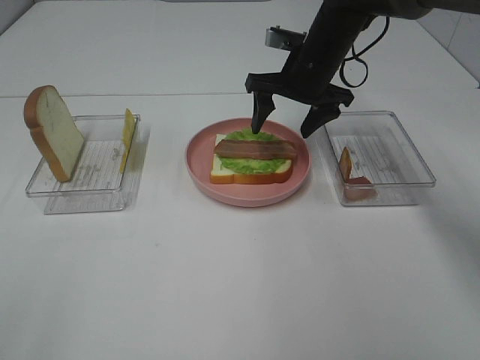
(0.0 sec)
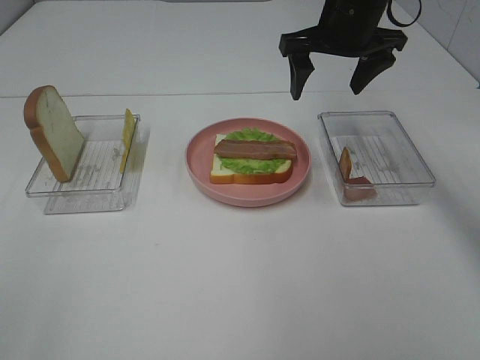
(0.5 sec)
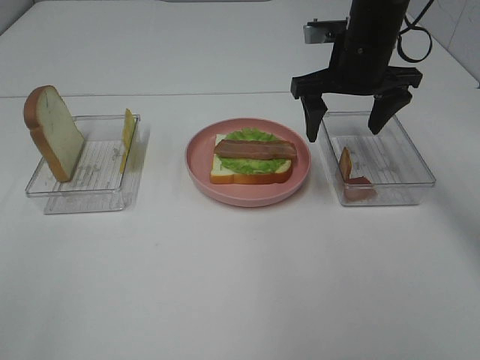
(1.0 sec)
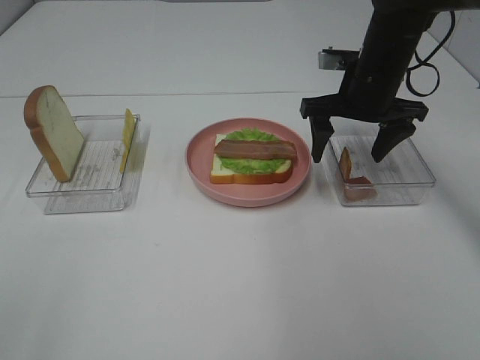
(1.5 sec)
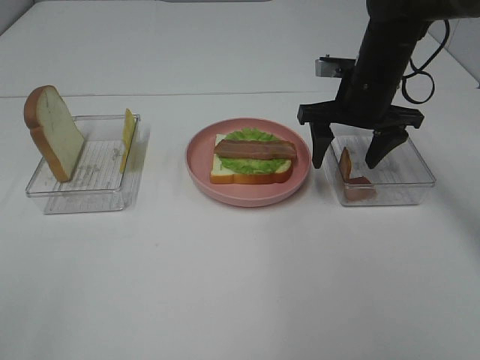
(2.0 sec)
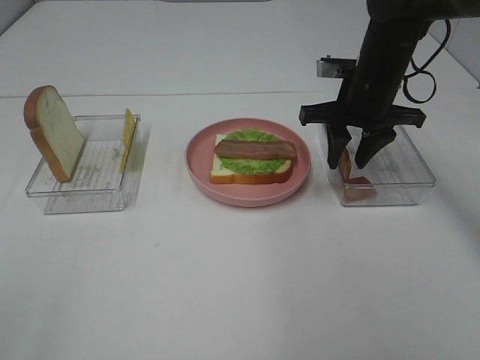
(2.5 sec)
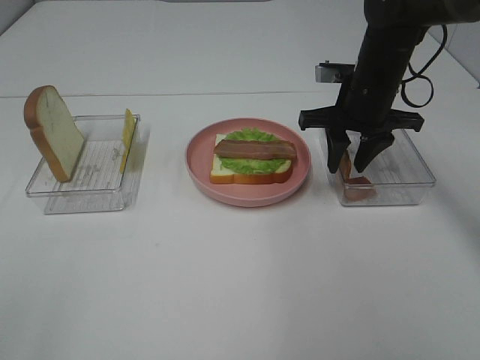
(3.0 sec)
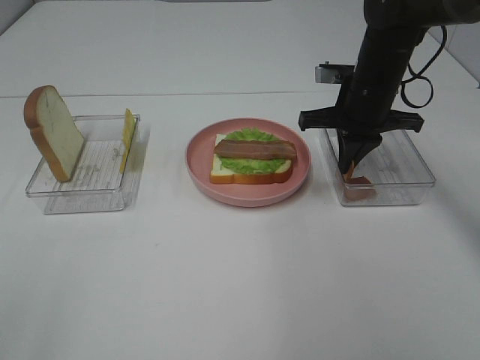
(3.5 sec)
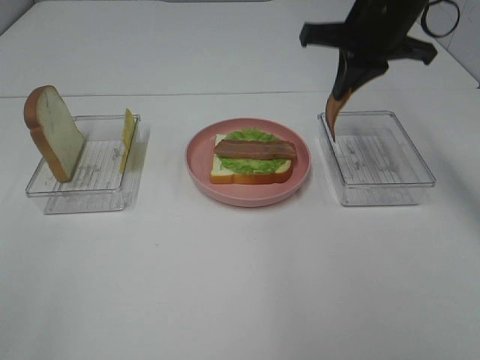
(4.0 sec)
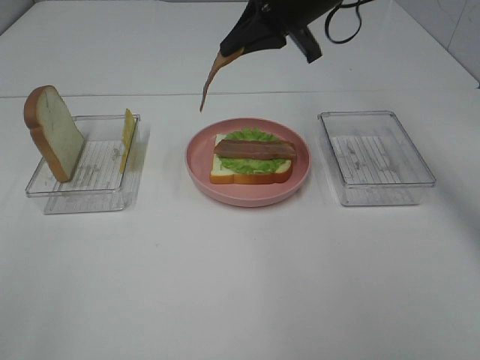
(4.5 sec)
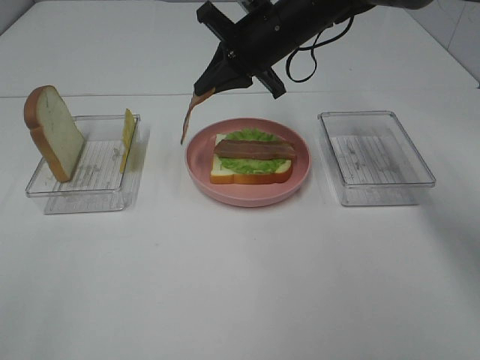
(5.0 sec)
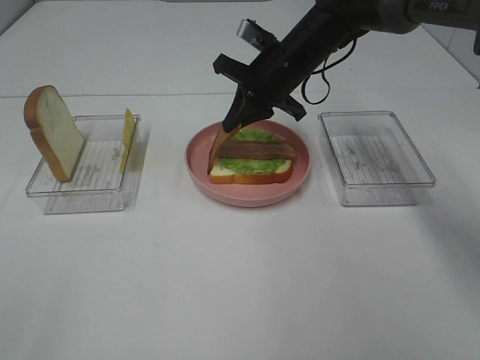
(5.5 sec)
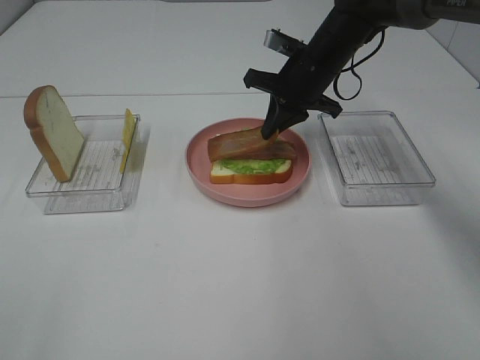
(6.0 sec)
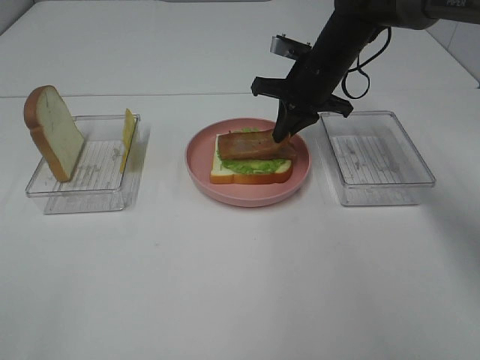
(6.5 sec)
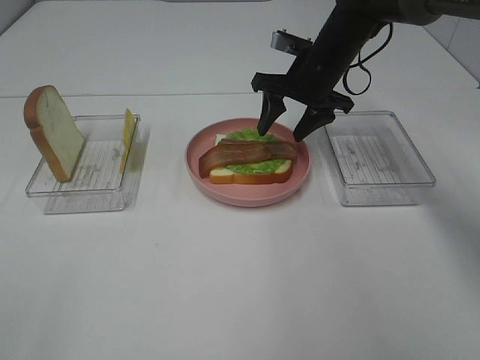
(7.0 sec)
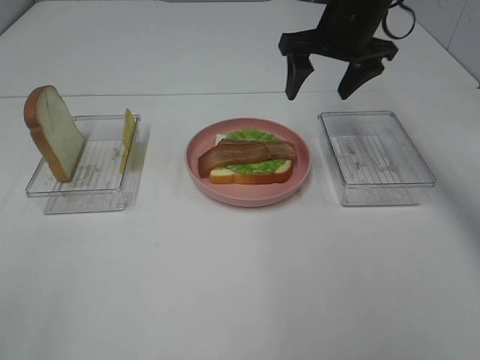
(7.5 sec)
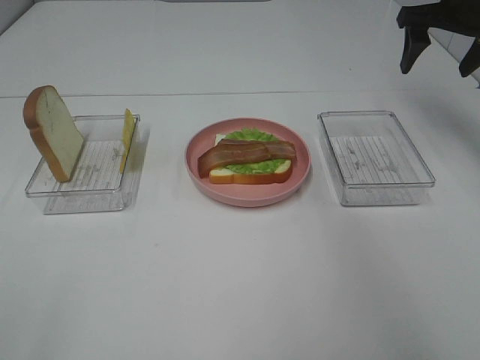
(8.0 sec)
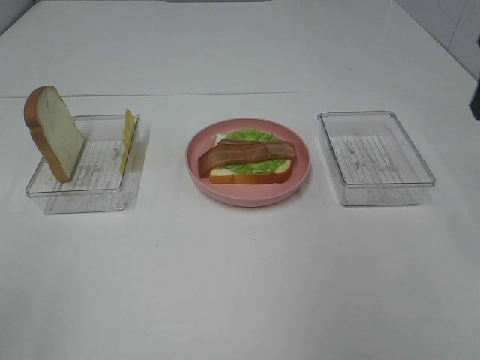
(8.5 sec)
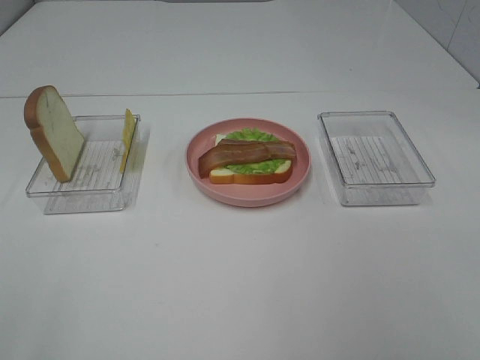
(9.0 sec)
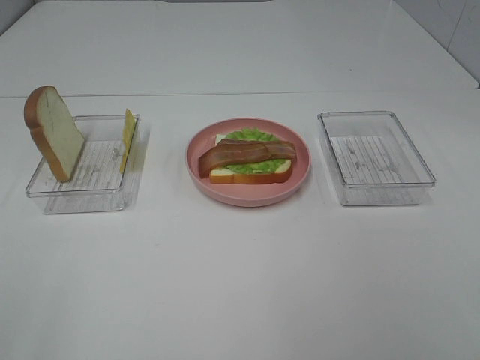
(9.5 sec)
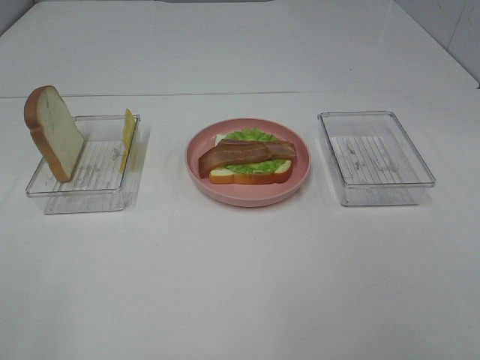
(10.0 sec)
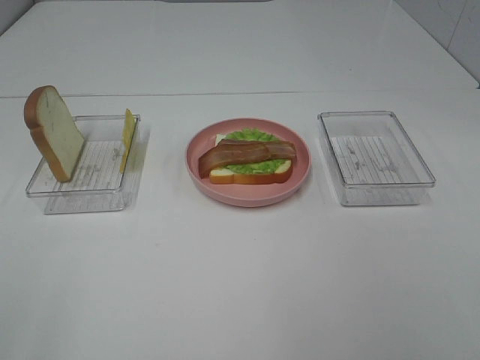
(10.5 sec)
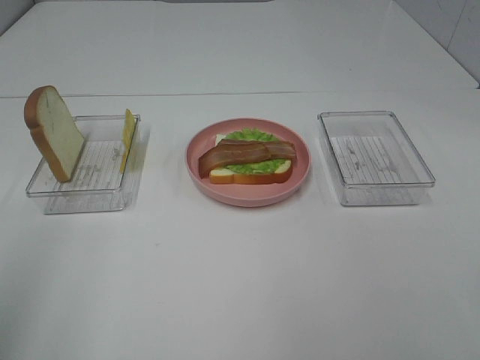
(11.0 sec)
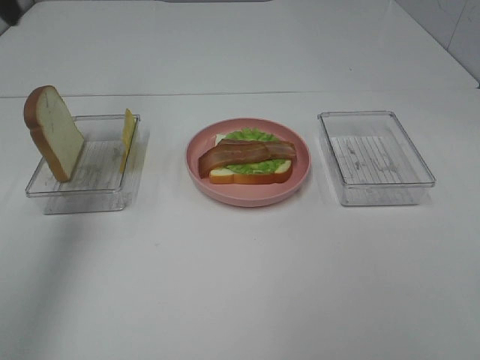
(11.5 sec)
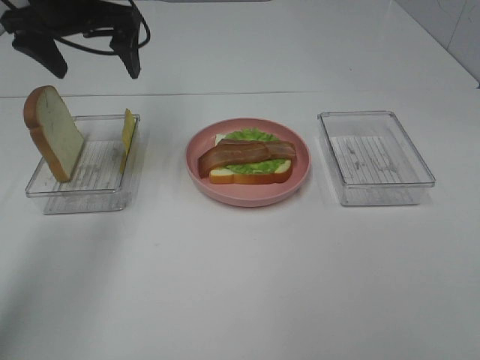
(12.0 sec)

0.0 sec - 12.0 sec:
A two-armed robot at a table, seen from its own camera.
Task of the whole recording: Make sandwiches.
Step, 0.0 sec - 3.5 sec: Right hand:grab the bacon.
Step, 4.0 sec - 7.0 sec: Right hand:place bacon on bacon.
0.0 sec - 2.0 sec: The right gripper shifts about 5 cm to the right, and goes upward and returns, some 5 cm each way.
2.0 sec - 4.0 sec: The right gripper shifts about 10 cm upward, and closes its fingers.
4.0 sec - 6.0 sec: The right gripper goes some 15 cm downward and forward.
6.0 sec - 8.0 sec: The right gripper moves to the right and upward, about 20 cm, and opens its fingers.
8.0 sec - 10.0 sec: The right gripper moves backward, approximately 50 cm.
10.0 sec - 12.0 sec: The left gripper shifts approximately 50 cm forward.

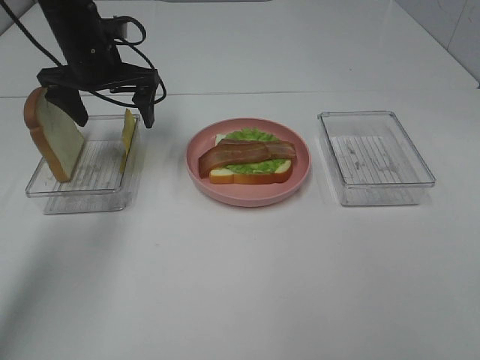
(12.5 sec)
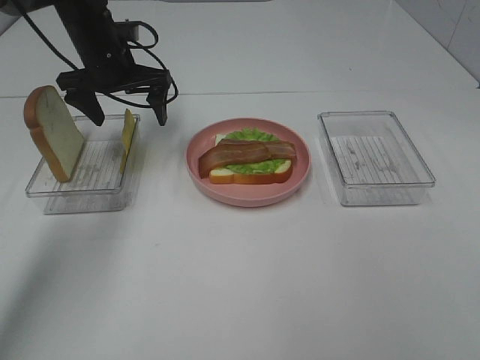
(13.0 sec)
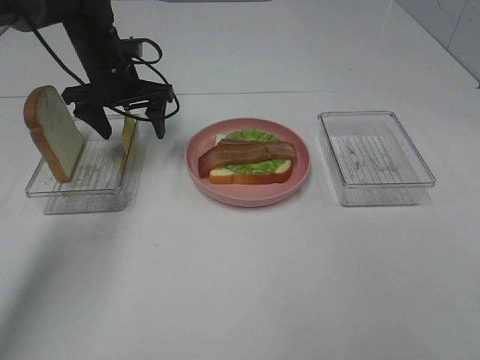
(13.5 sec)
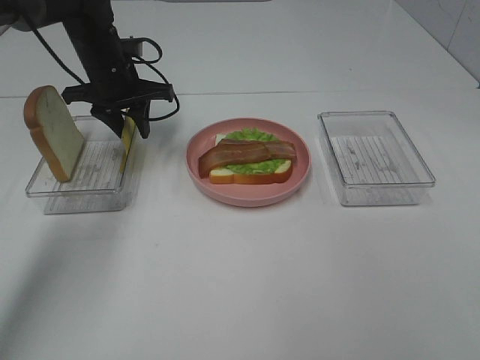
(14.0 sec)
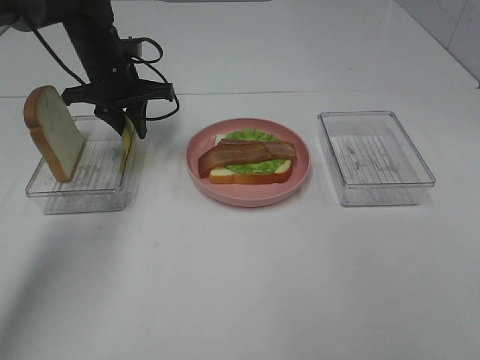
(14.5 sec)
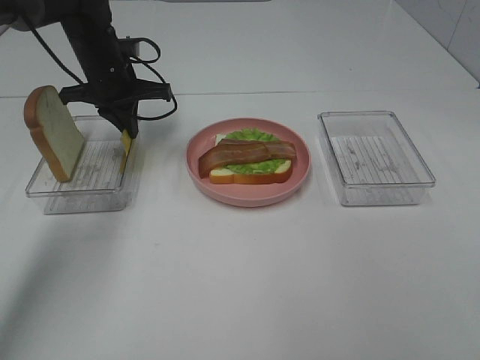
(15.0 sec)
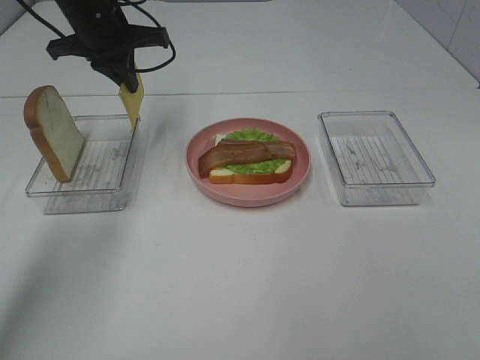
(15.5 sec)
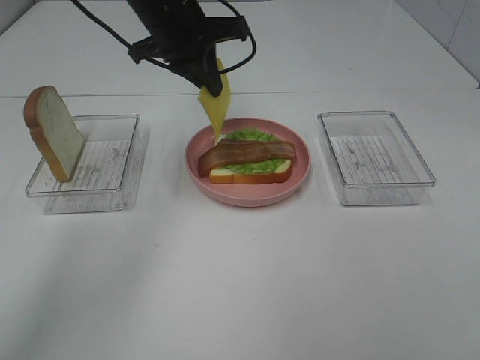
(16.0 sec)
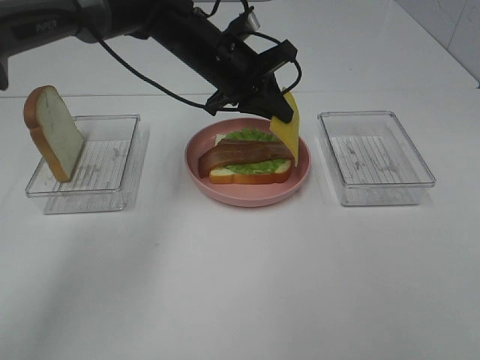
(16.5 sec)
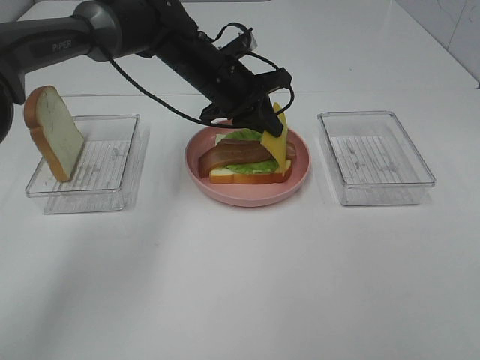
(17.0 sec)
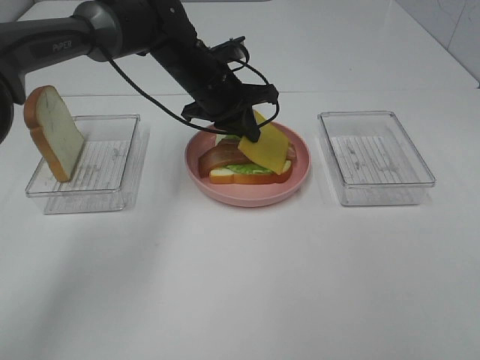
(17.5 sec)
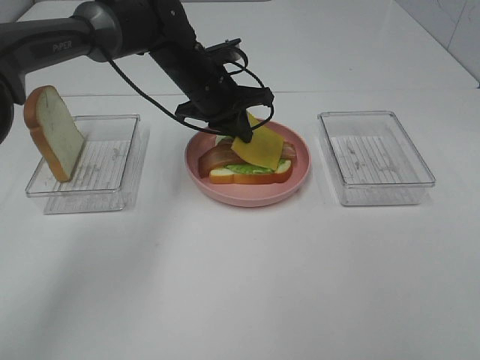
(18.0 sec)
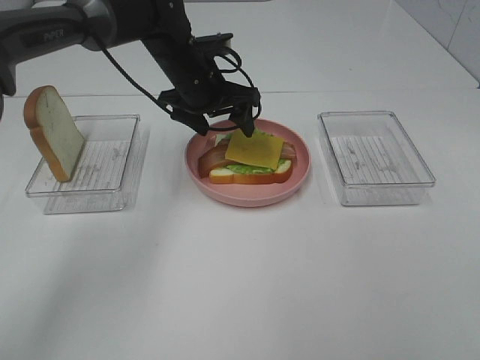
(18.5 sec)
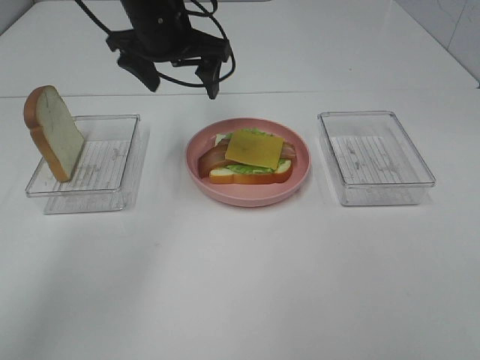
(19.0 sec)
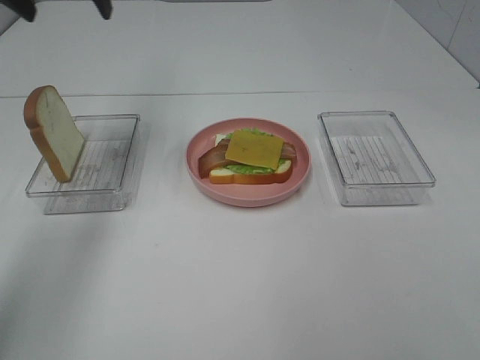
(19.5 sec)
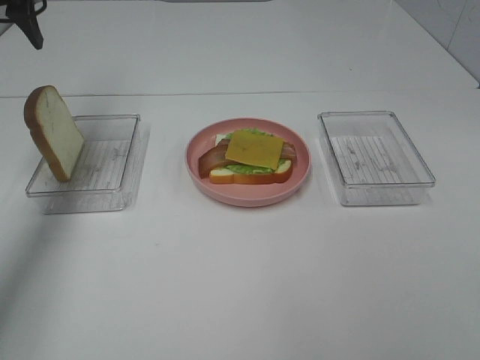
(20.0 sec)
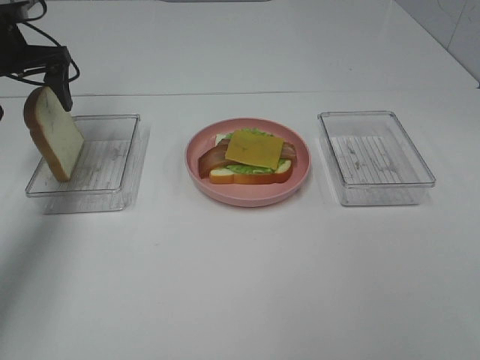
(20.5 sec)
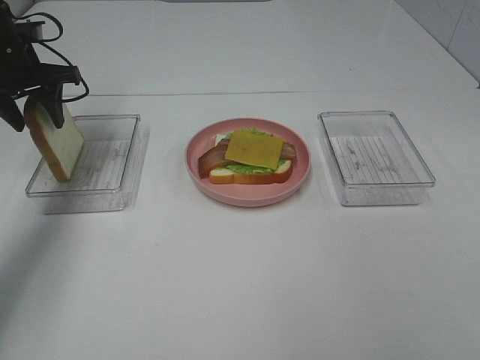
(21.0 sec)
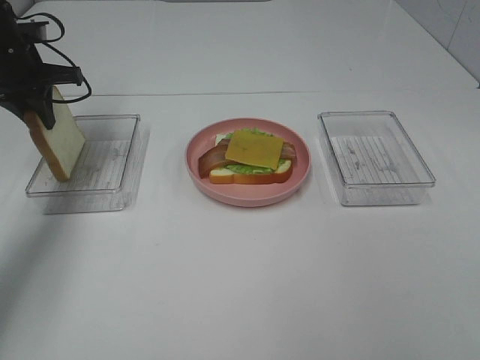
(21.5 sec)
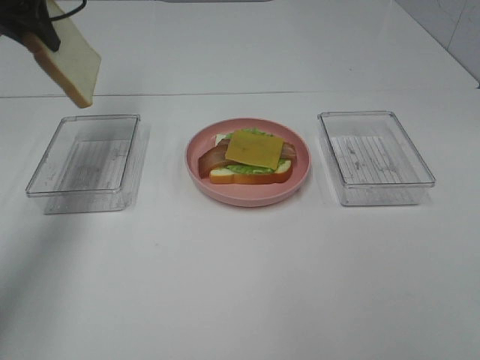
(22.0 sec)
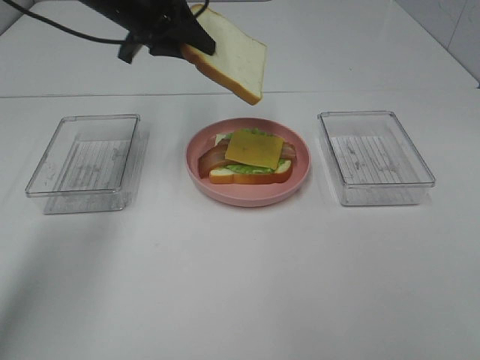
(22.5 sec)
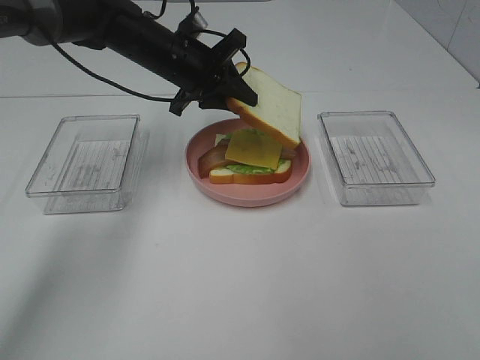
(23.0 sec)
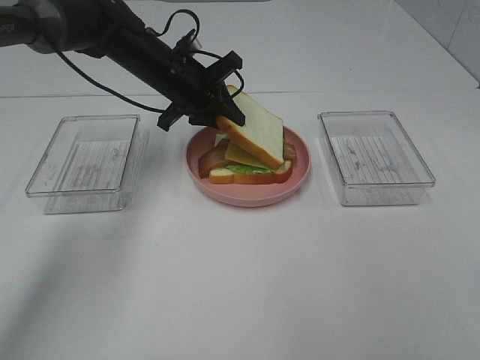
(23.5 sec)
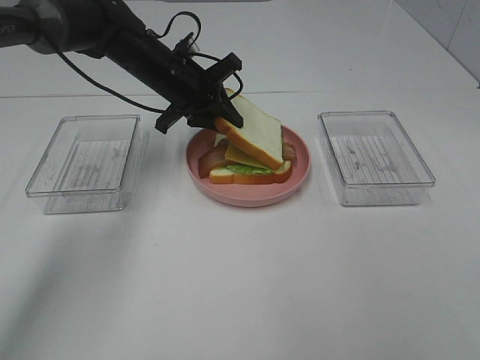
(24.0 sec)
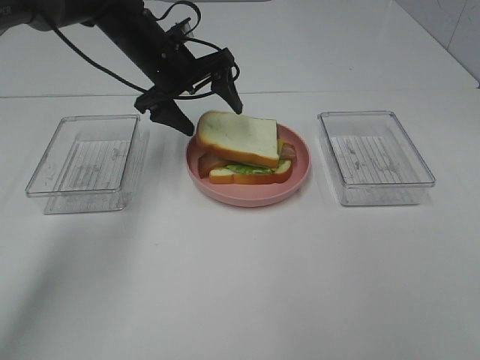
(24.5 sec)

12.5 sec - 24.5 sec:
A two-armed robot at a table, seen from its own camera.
Task of the whole recording: Make sandwiches.
Step, 12.5 sec - 15.0 sec: Left hand:grab the cheese slice.
Step, 15.5 sec - 18.5 sec: Left hand:place the cheese slice on top of the bacon.
Step, 19.0 sec - 21.5 sec: Left hand:grab the bread slice.
12.5 sec - 14.5 sec: The left gripper closes.
14.5 sec - 16.5 sec: The left gripper goes roughly 15 cm to the right.
16.5 sec - 18.5 sec: The left gripper opens up.
18.5 sec - 20.5 sec: The left gripper moves to the left, about 25 cm.
20.5 sec - 22.5 sec: The left gripper heads to the right, covering approximately 15 cm, and closes up.
22.5 sec - 24.5 sec: The left gripper is displaced downward by approximately 5 cm, and opens up.

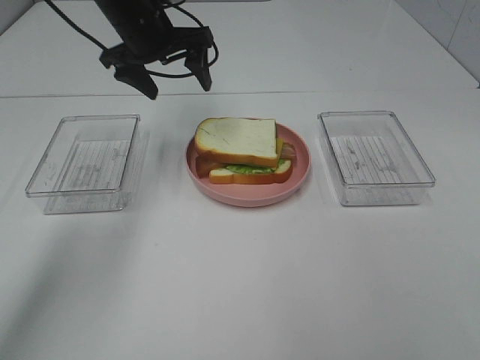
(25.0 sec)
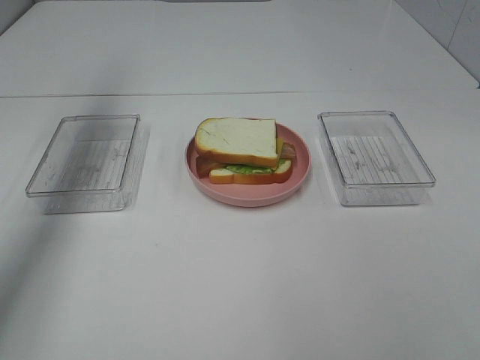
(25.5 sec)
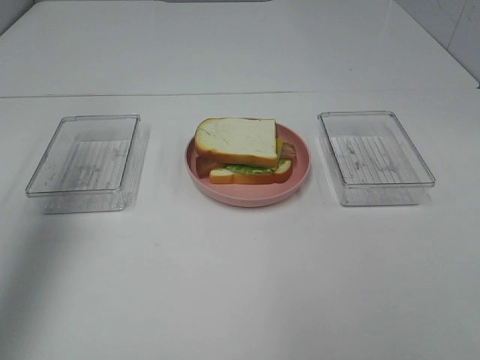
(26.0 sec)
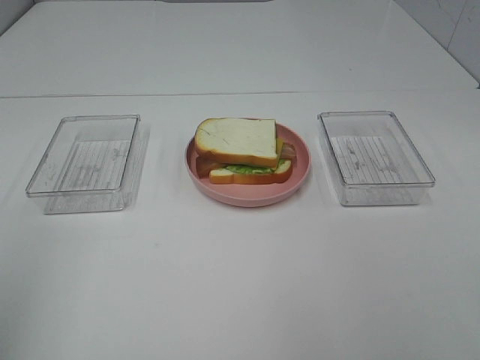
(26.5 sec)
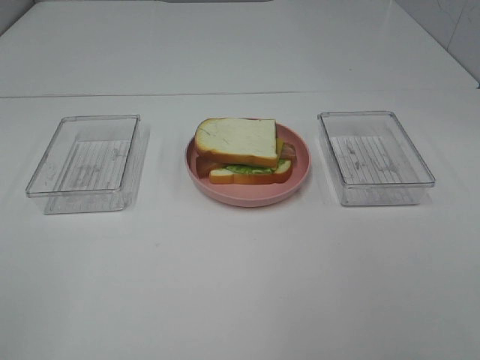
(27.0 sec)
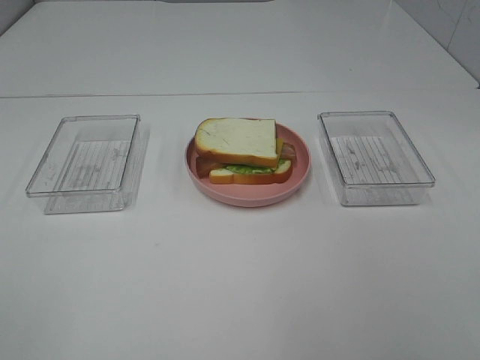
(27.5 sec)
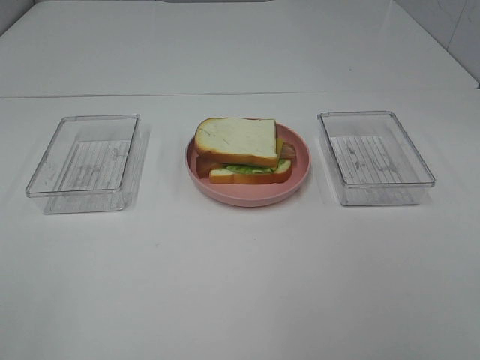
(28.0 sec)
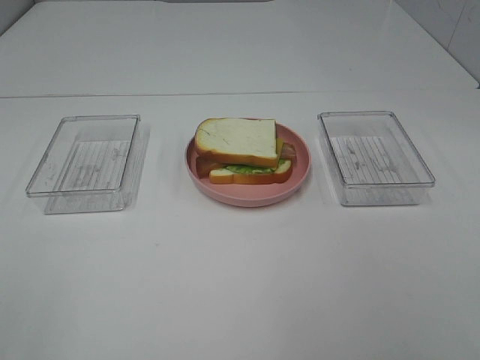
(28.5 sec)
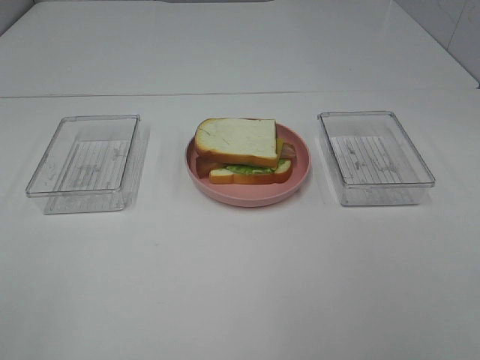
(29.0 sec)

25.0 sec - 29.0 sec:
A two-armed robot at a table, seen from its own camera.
Task of the whole recording: Make sandwiches.
25.0 sec - 27.0 sec: The left gripper goes some 50 cm backward.
